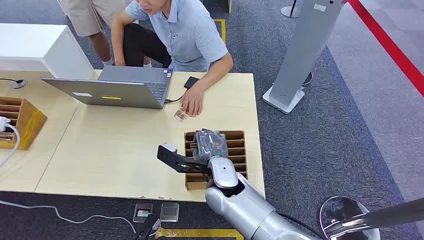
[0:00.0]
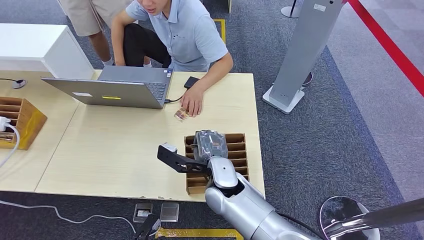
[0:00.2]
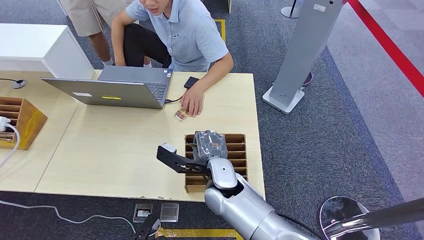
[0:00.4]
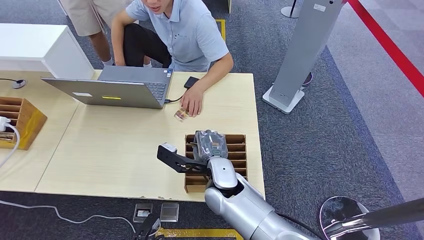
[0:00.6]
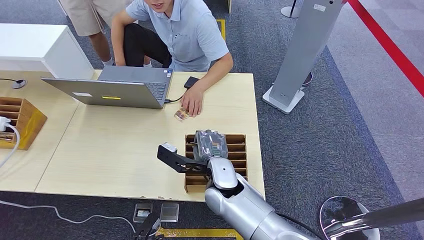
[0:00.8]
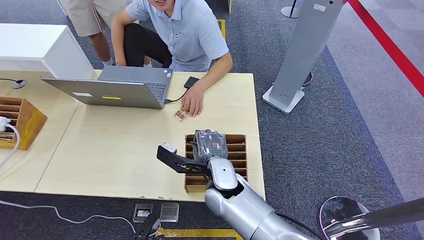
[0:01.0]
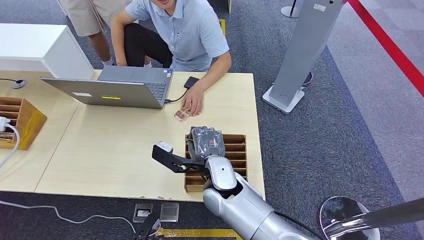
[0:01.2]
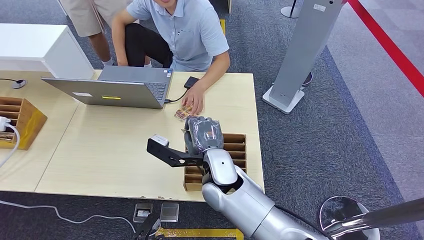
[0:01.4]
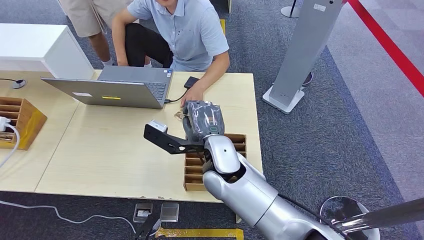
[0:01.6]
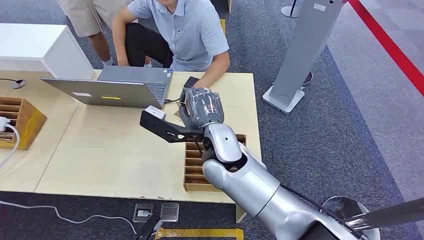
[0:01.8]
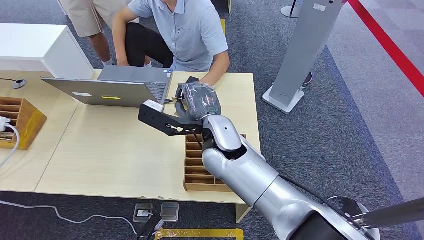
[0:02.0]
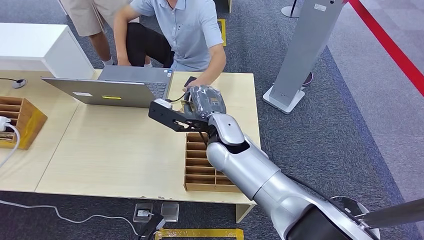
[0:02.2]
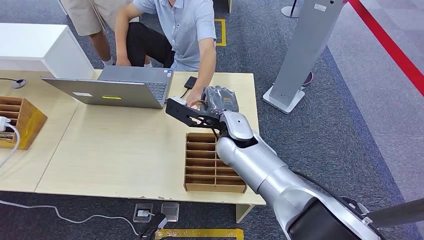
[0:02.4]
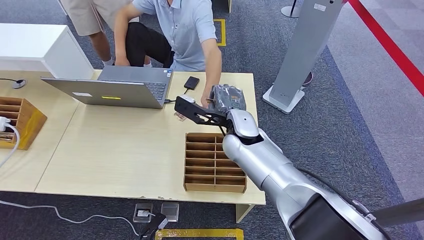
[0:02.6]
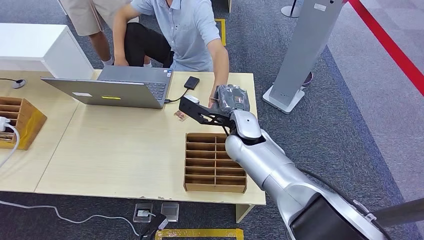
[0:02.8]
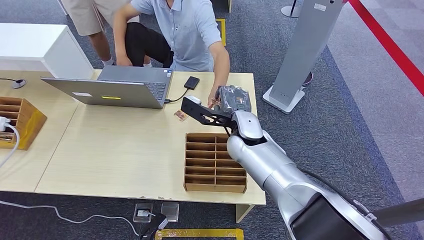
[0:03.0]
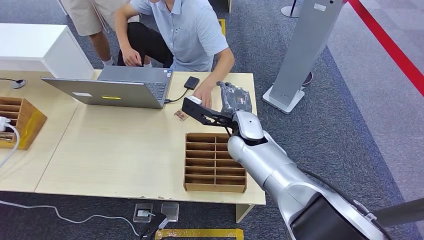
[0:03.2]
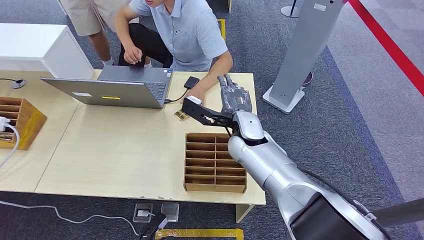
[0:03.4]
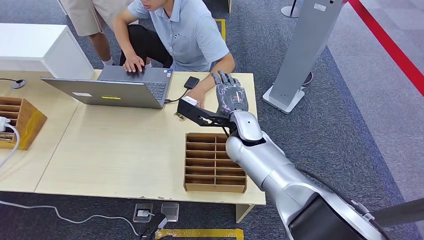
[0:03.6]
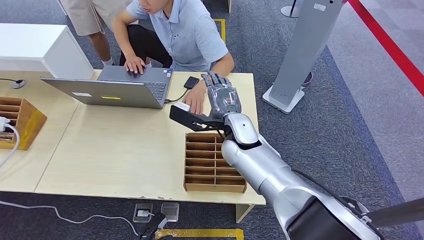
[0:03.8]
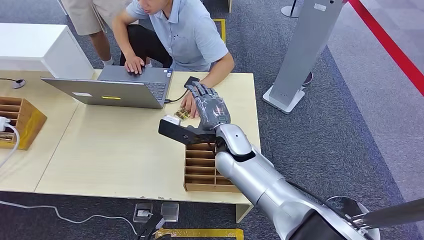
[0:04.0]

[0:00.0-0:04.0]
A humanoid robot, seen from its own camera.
Step, 0:00.0 to 0:01.6: Pick up the room card from the card holder.
Step, 0:02.8 to 0:03.8: Hand the room card to the target.
0:01.4 to 0:02.6: The right hand goes approximately 10 cm forward.
0:02.6 to 0:04.0: The hands stay close to where they were, moving slightly.
